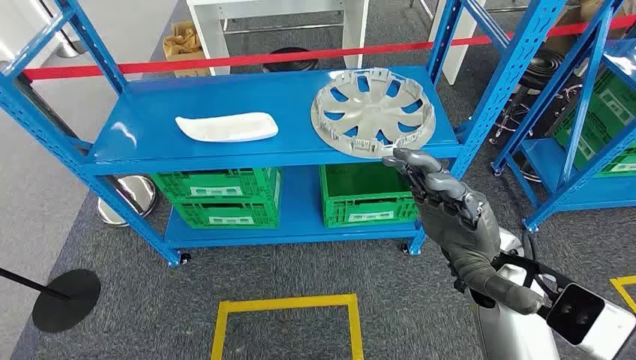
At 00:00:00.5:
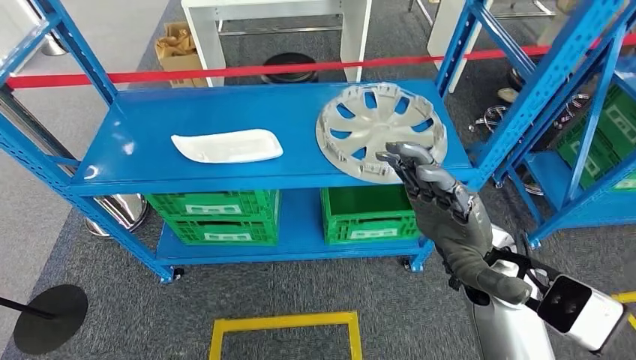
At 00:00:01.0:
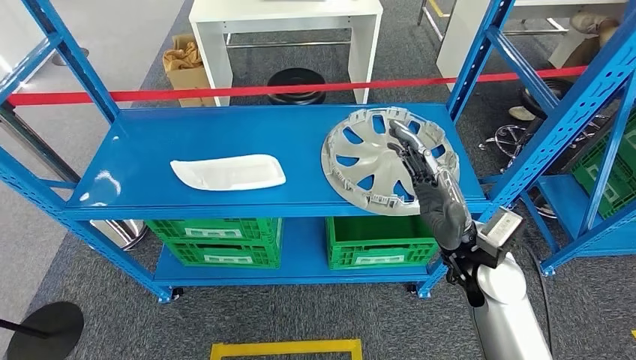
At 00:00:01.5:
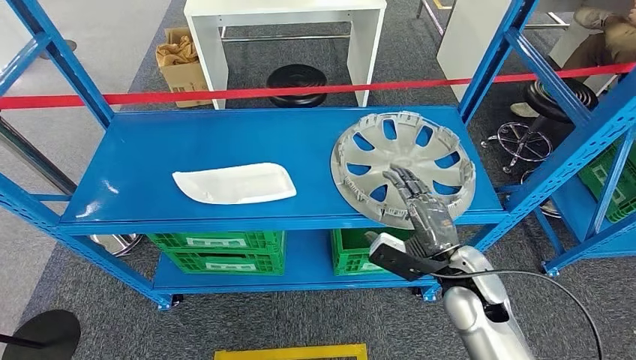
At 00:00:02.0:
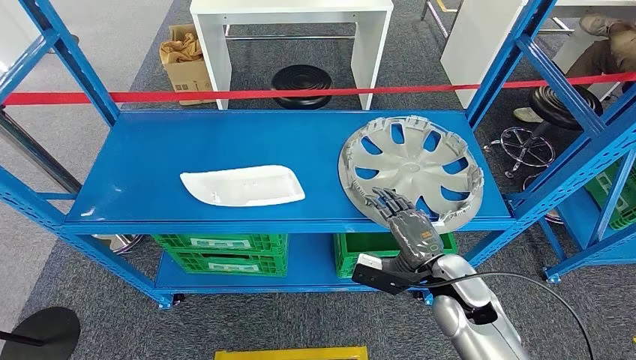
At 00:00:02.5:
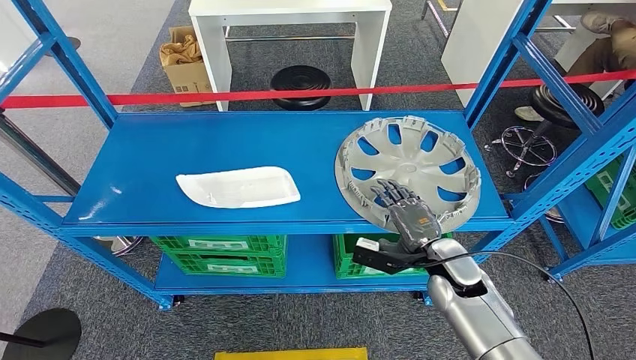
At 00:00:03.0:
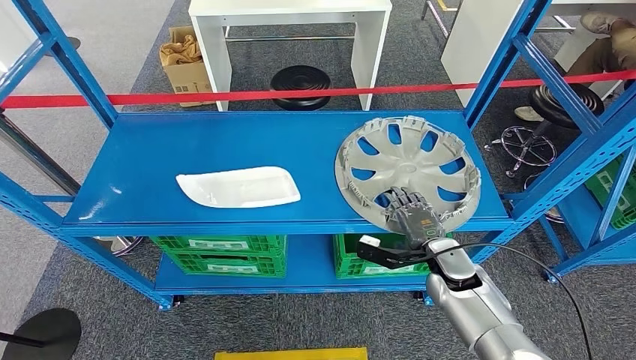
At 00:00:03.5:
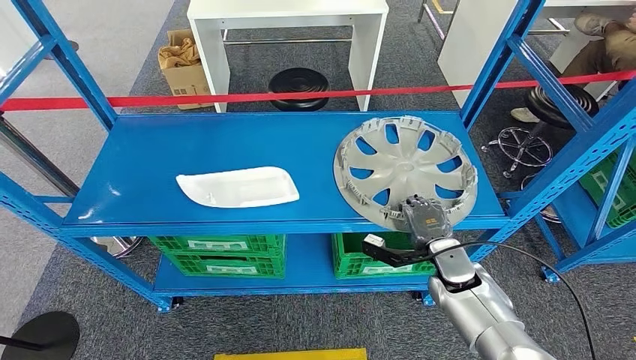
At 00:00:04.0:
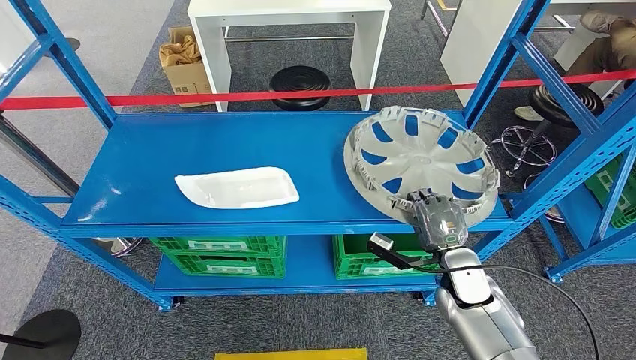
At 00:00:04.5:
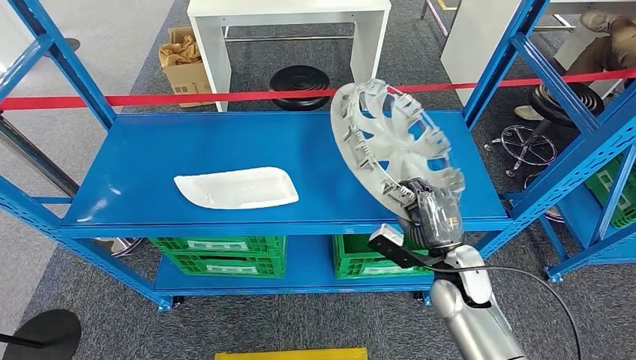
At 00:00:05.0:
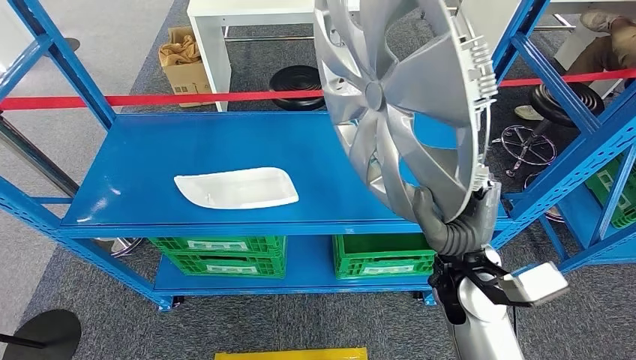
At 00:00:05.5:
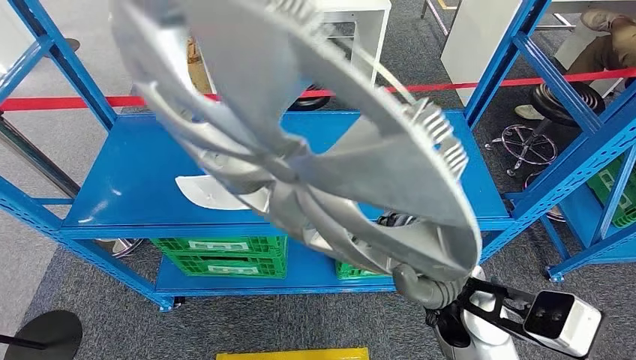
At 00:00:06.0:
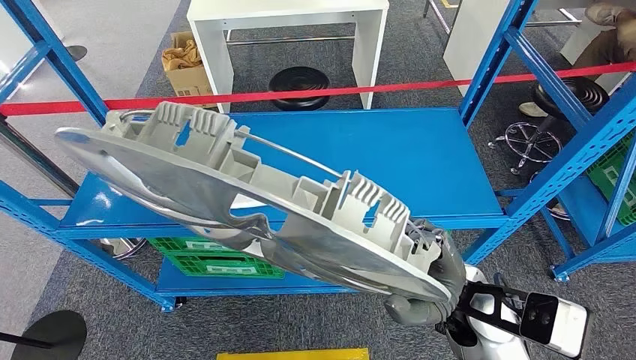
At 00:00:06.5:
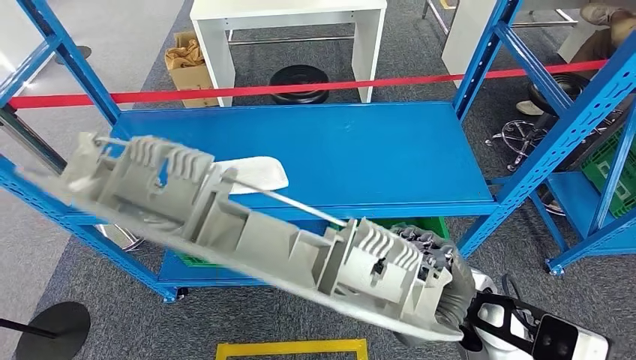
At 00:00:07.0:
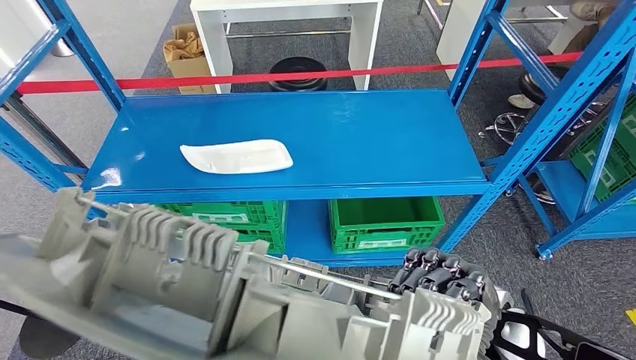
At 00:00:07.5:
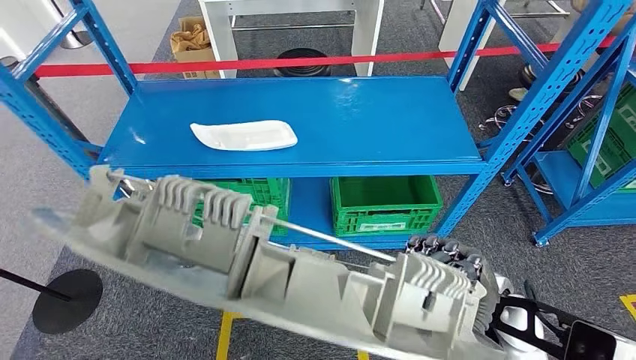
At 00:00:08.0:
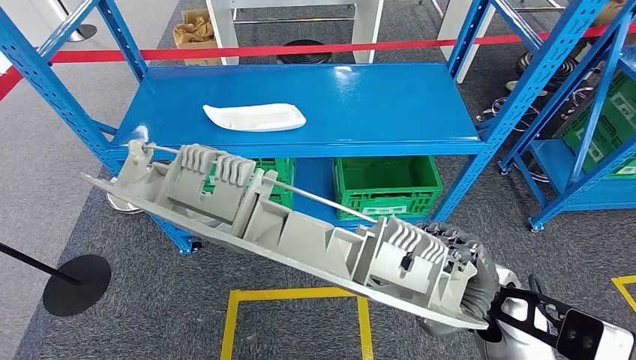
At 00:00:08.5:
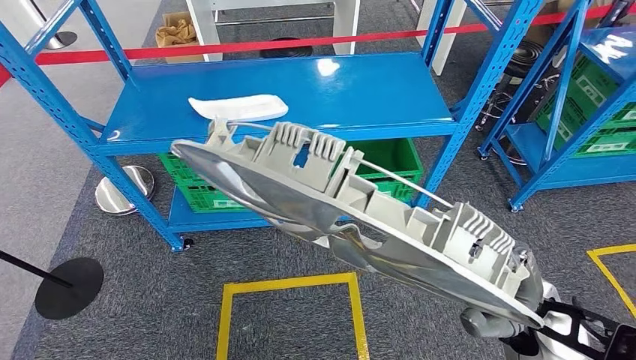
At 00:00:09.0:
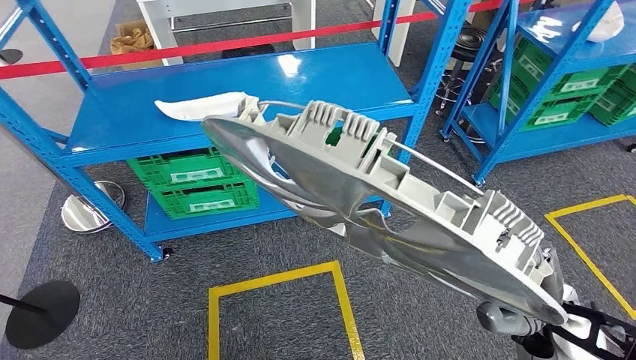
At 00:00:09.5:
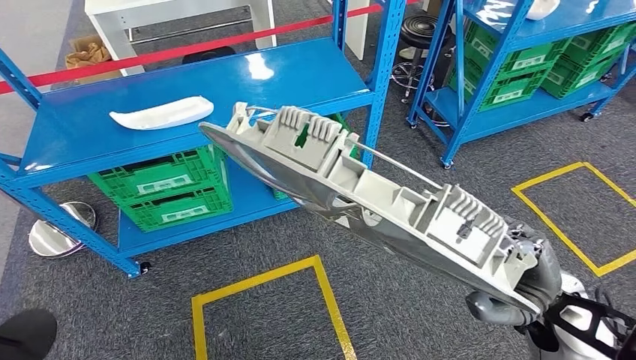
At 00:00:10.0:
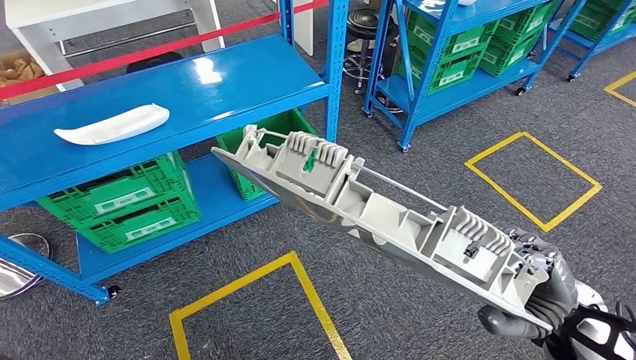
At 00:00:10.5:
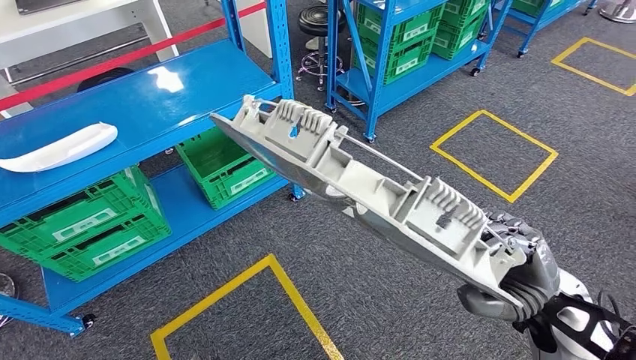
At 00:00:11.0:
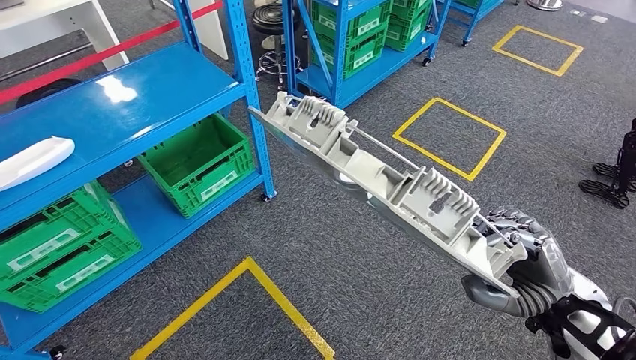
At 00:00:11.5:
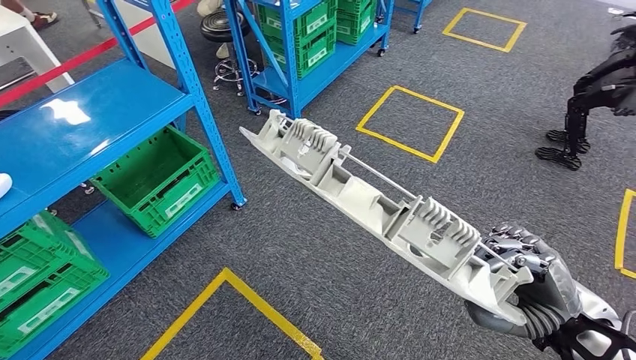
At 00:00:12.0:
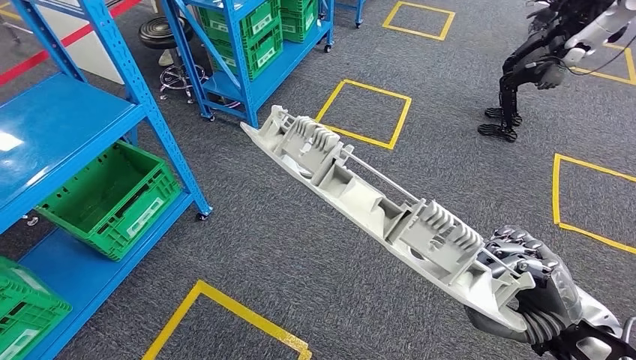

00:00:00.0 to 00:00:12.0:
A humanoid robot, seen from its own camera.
Step, 00:00:00.0 to 00:00:06.5: Pick up the small component from the shelf.

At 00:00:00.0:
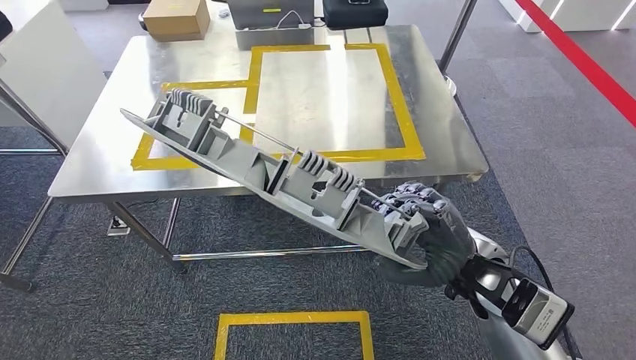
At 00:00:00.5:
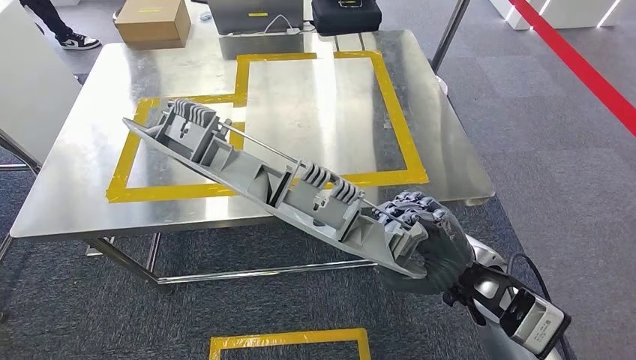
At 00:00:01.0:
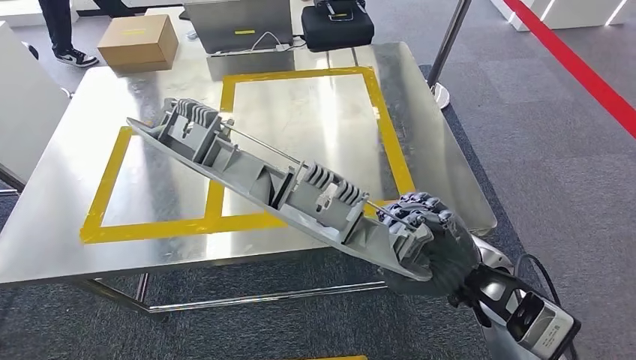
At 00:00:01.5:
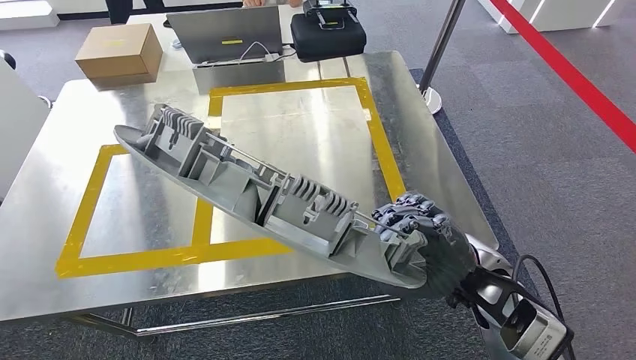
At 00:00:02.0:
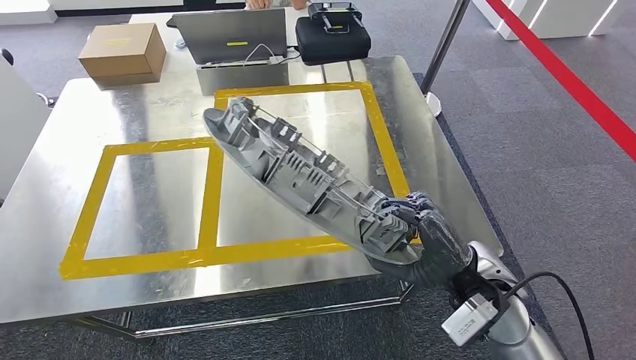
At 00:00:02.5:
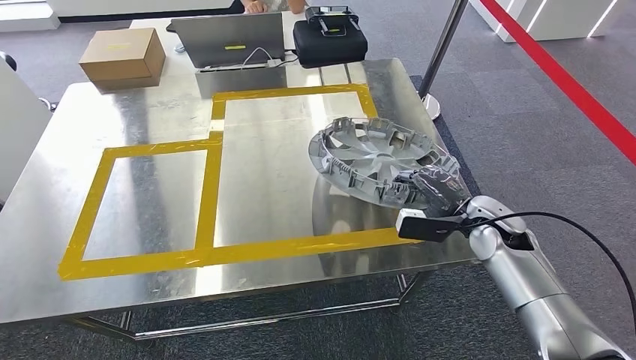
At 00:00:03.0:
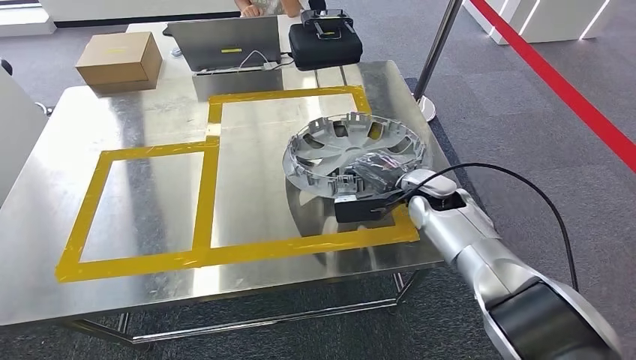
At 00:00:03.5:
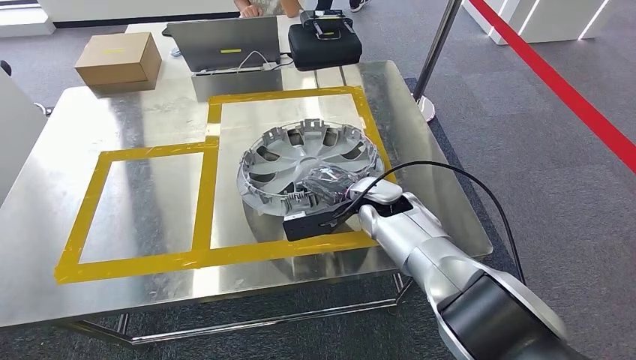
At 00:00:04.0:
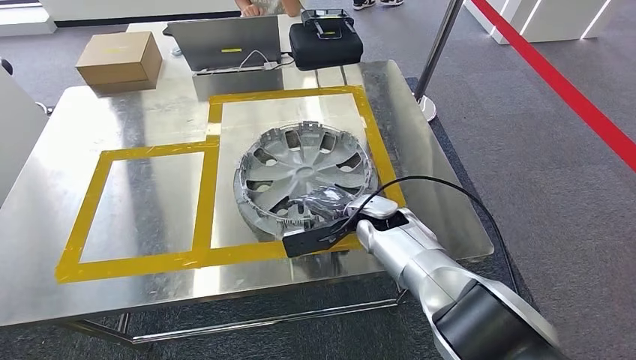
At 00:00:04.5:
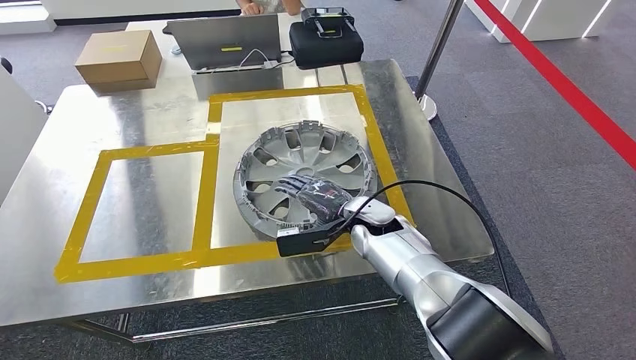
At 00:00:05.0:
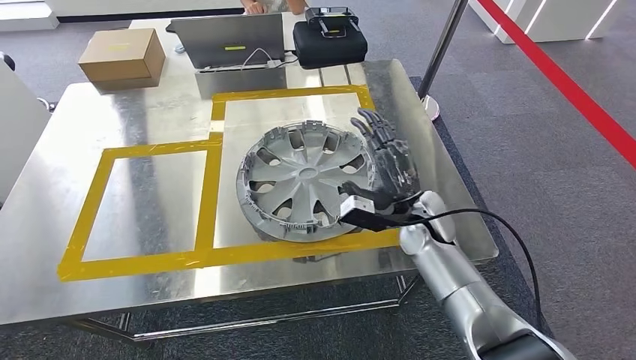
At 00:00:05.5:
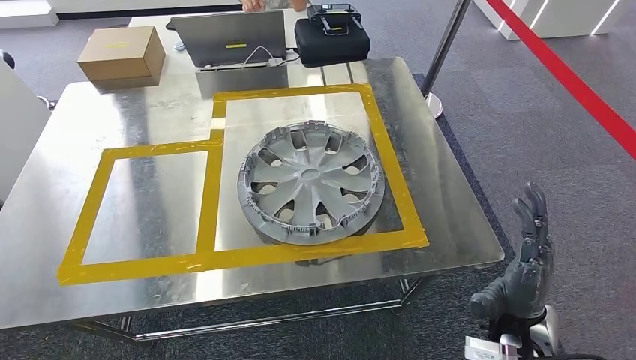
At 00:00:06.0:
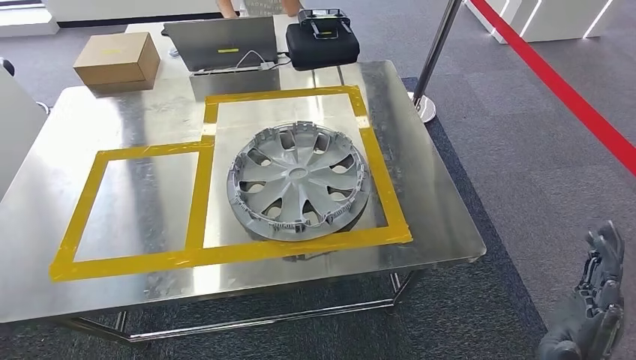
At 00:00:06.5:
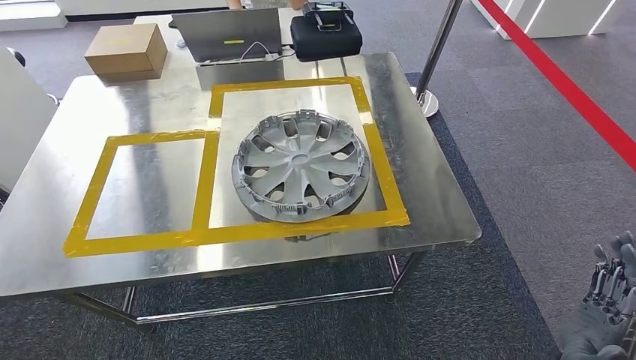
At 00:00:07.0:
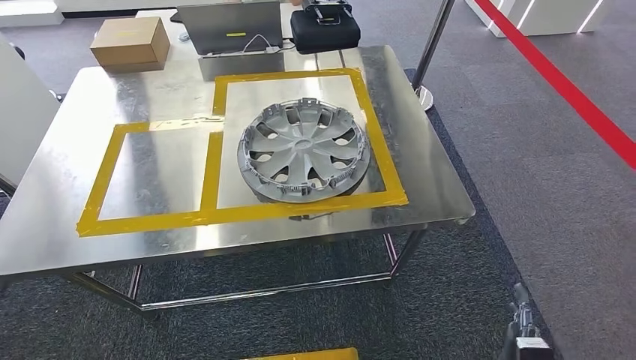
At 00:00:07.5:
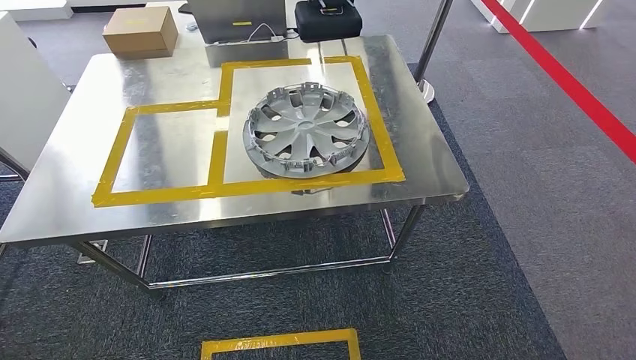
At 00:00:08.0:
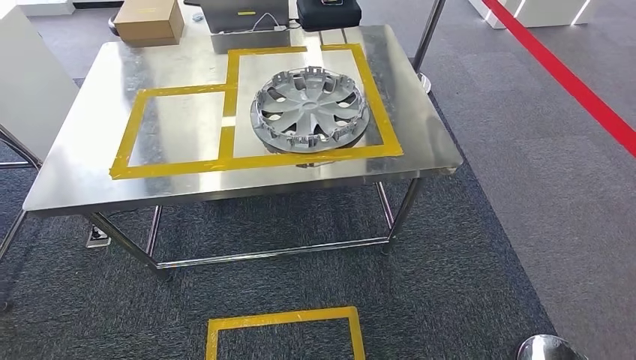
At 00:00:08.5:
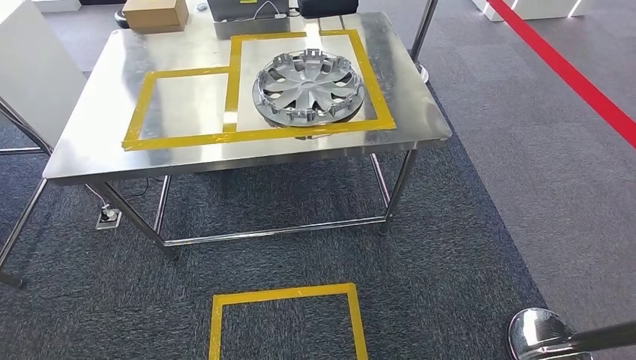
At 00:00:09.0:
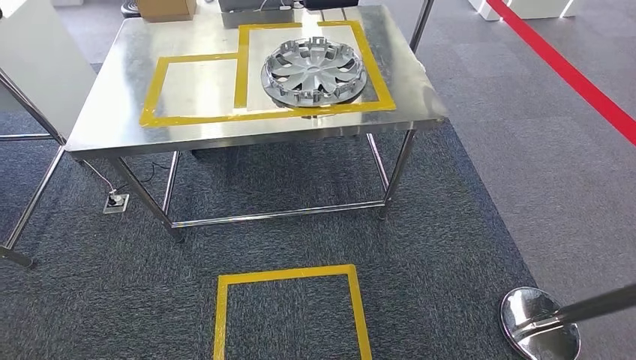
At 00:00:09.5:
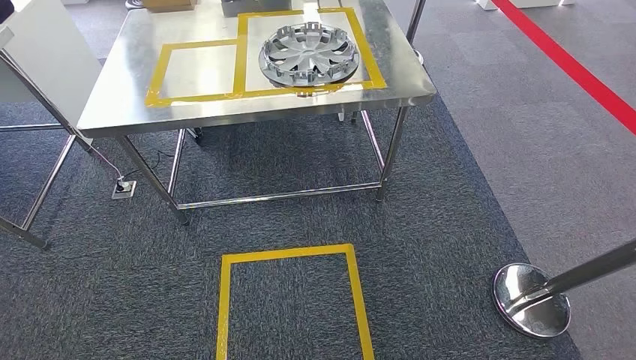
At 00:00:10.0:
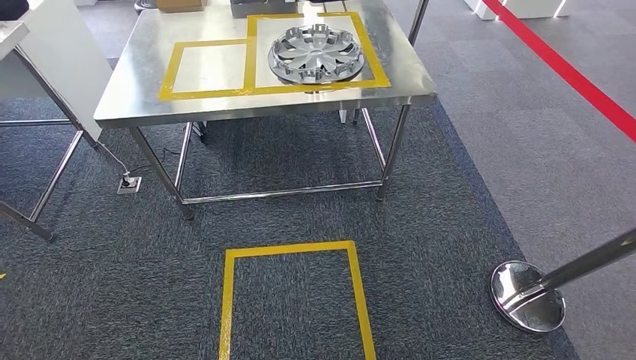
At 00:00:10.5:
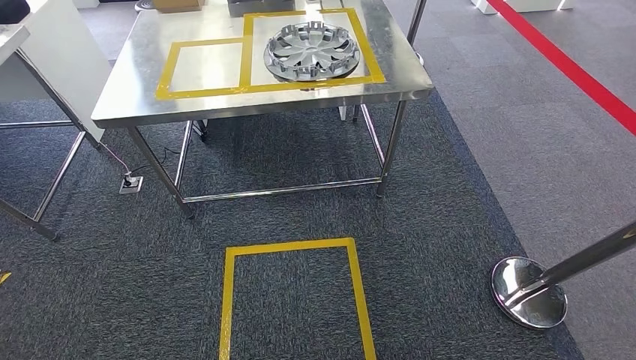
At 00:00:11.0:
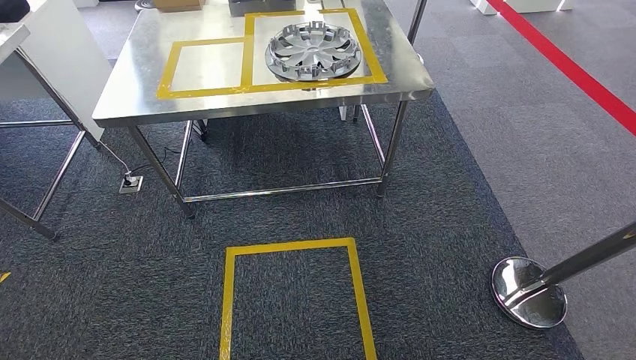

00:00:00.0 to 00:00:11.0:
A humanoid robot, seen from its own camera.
Step, 00:00:00.5 to 00:00:06.5: Insert the small component into the corresponding slot on the workbench.
